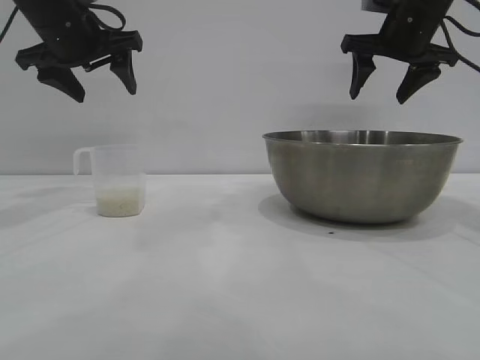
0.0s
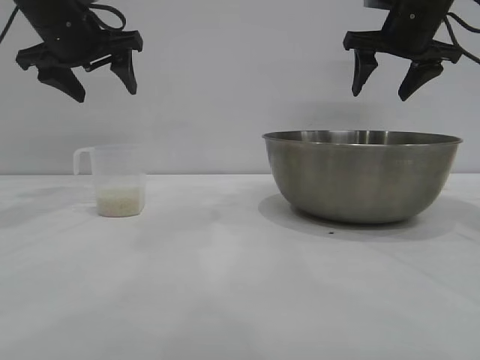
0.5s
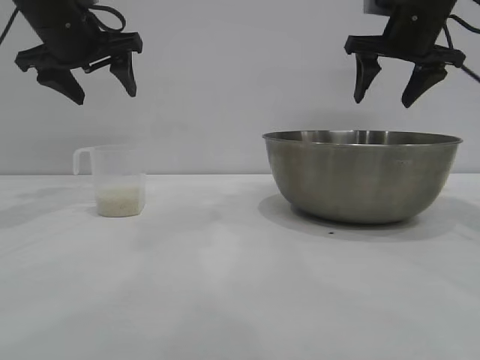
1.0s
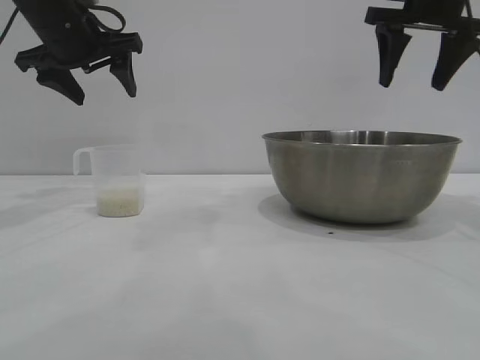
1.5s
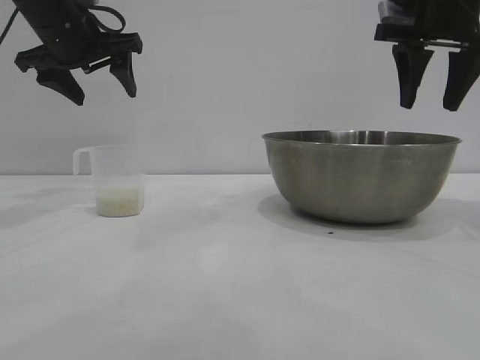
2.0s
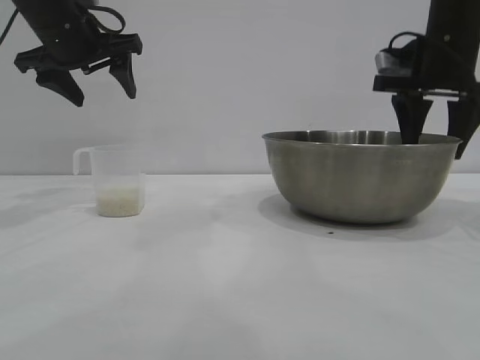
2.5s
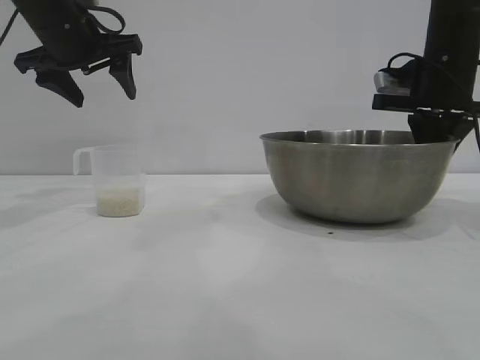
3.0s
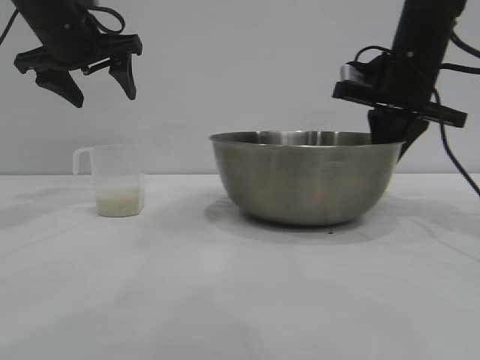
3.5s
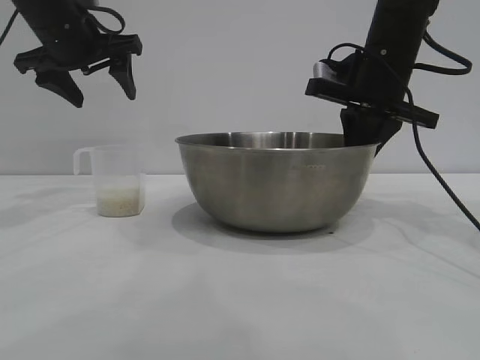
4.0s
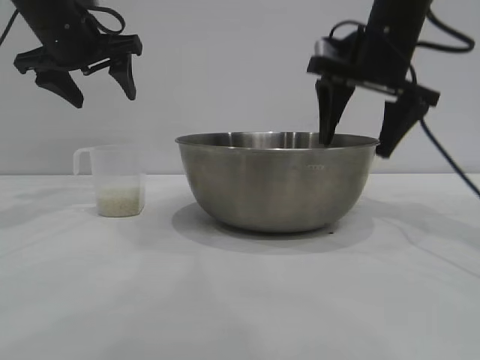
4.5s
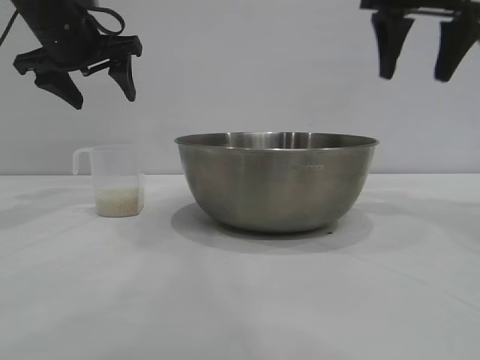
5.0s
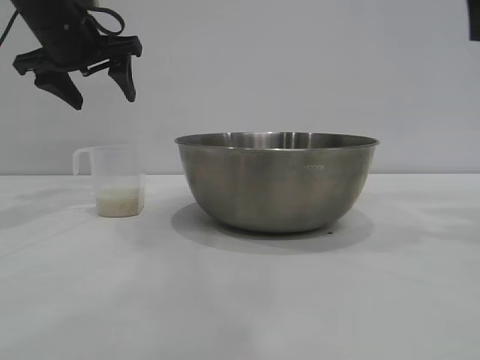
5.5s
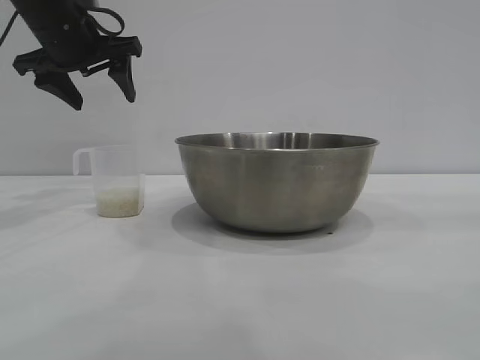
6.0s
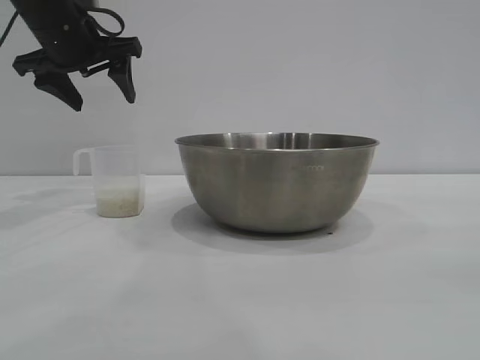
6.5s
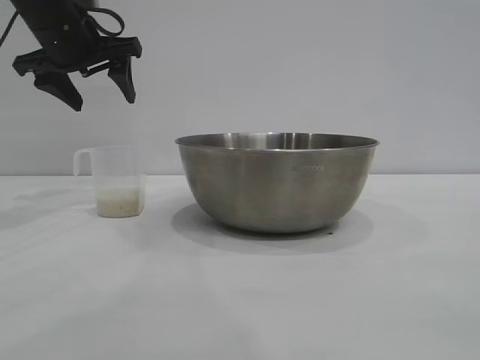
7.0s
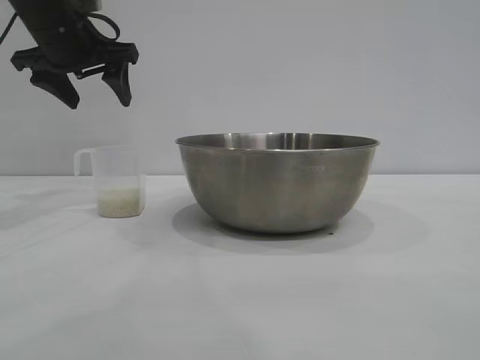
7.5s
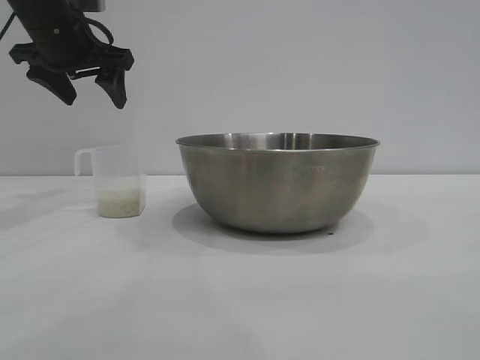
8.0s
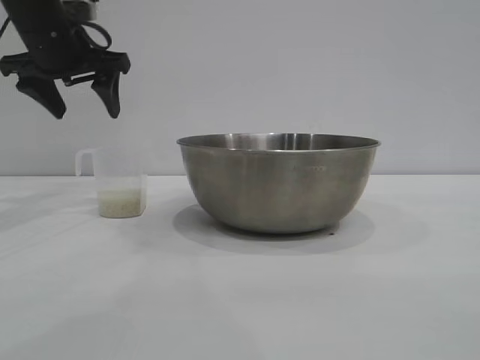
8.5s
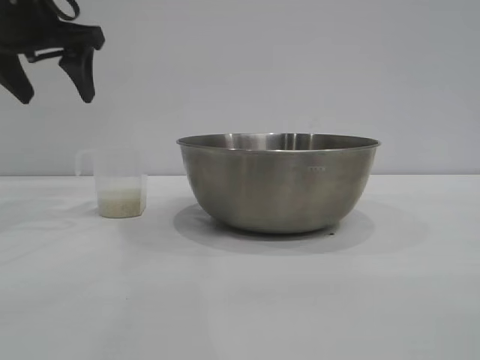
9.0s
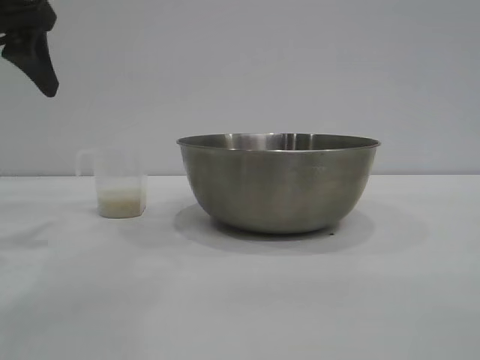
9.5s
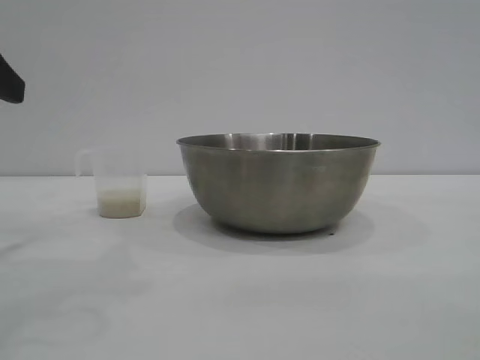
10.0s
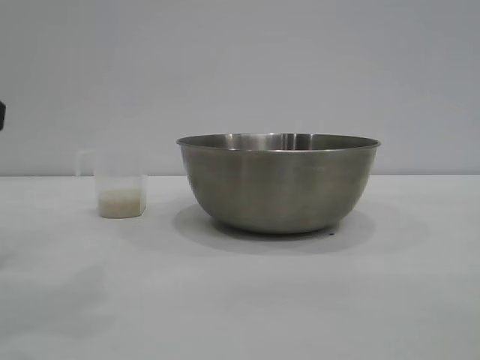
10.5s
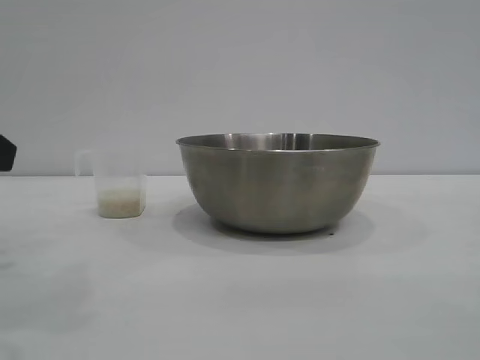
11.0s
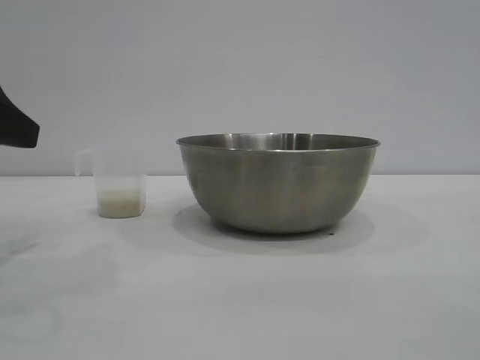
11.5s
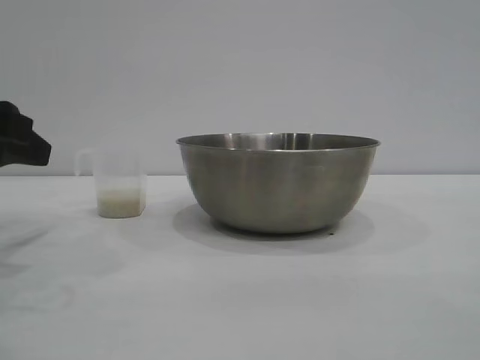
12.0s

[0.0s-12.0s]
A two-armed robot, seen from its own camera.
Task of the whole recording: the right gripper grasp the rice container and place it in the center of the table, the left gripper grasp the rice scoop and pour the rice into the rice container.
Step, 0.0s to 4.5s: Move the bowl to the center of view with the right gripper.

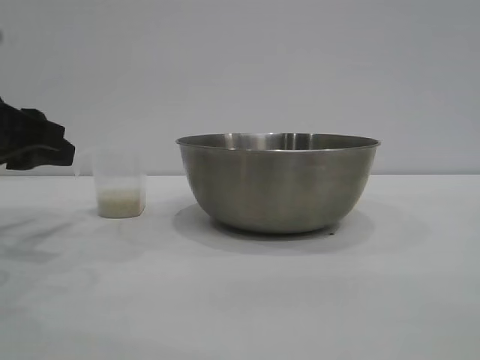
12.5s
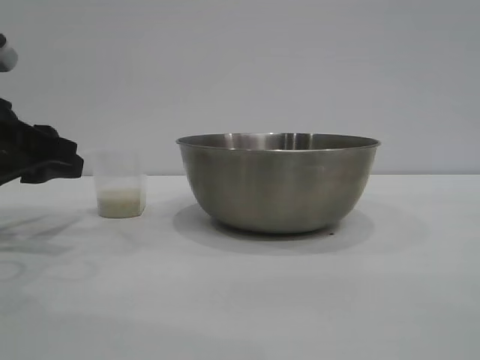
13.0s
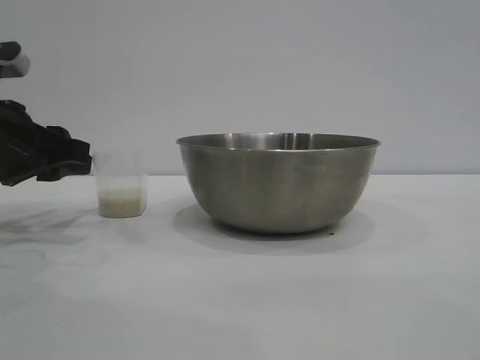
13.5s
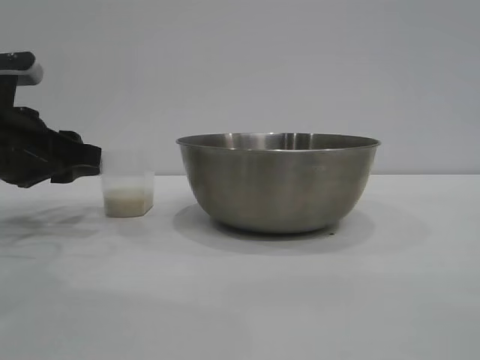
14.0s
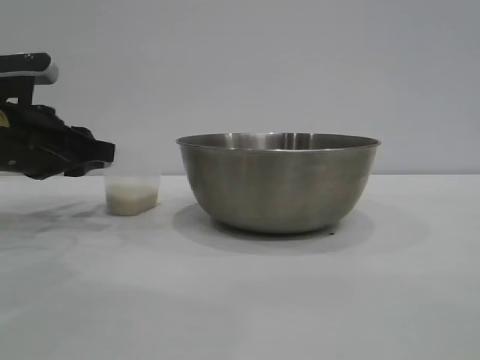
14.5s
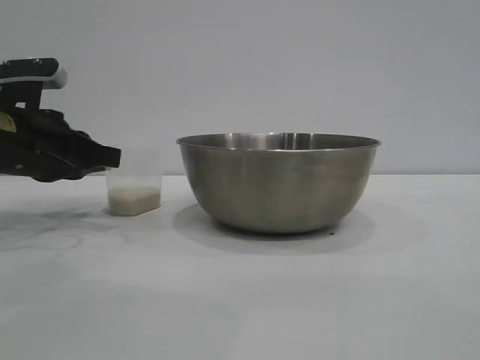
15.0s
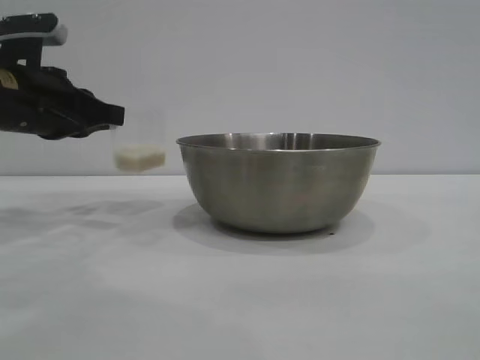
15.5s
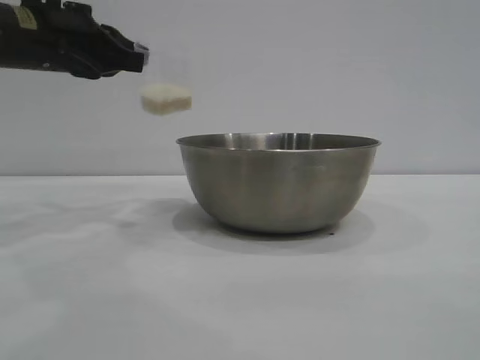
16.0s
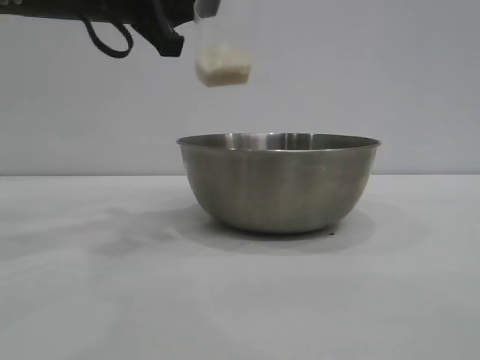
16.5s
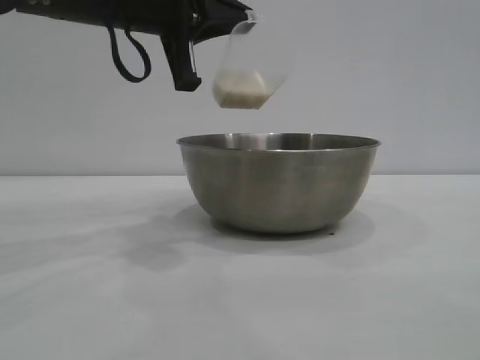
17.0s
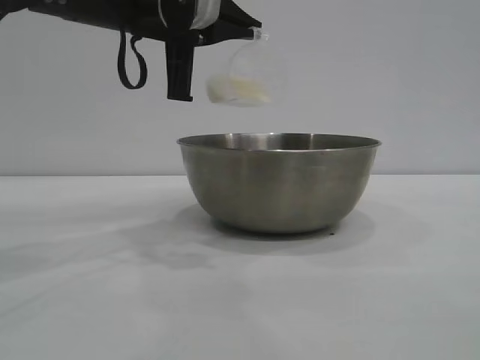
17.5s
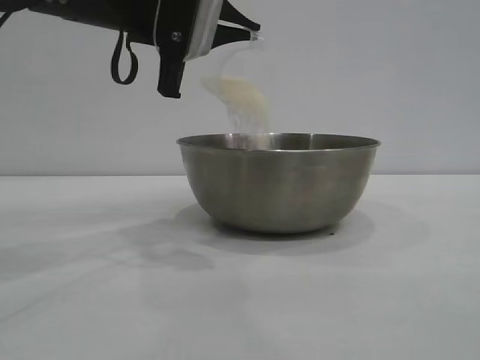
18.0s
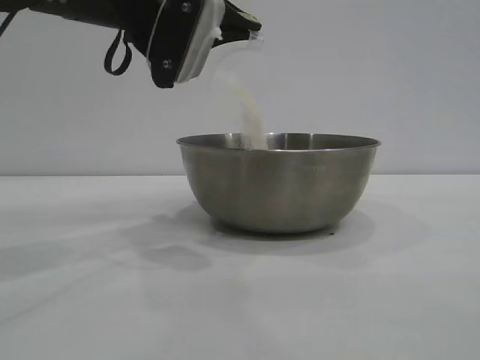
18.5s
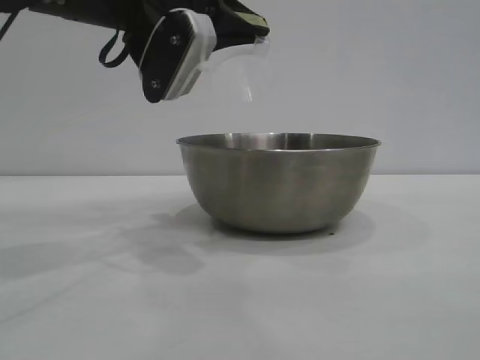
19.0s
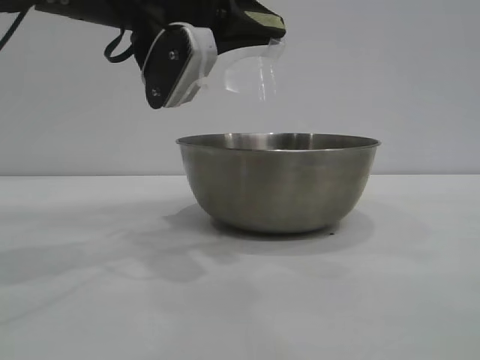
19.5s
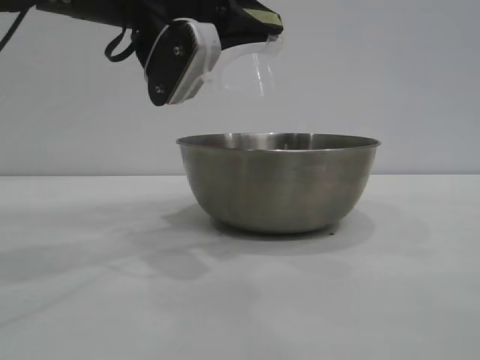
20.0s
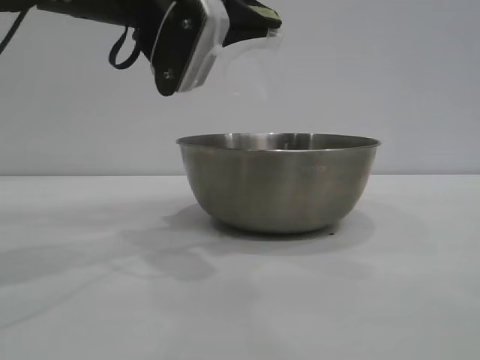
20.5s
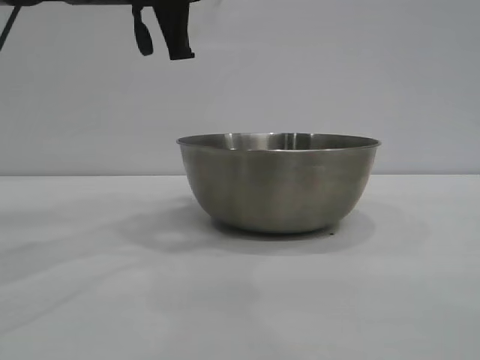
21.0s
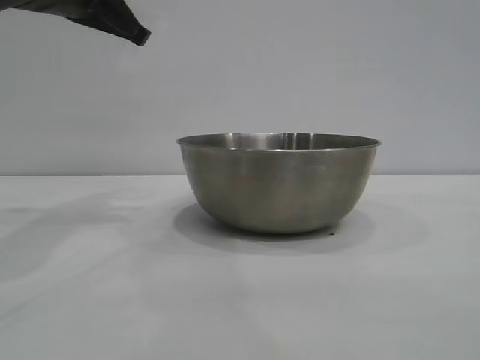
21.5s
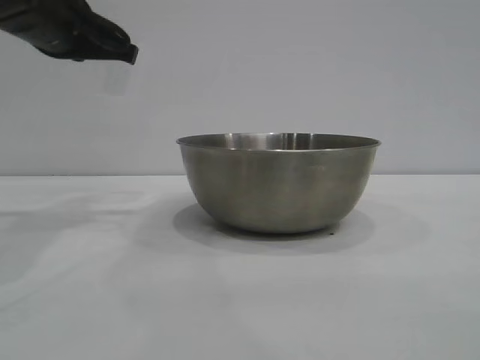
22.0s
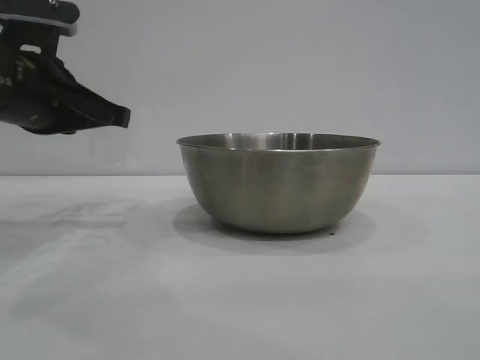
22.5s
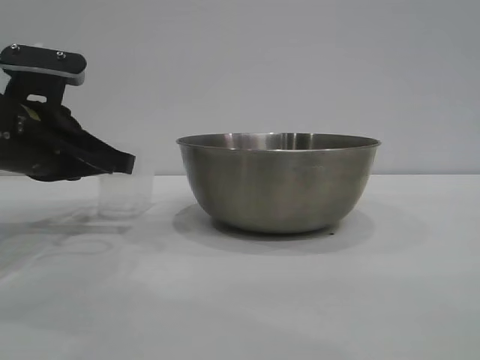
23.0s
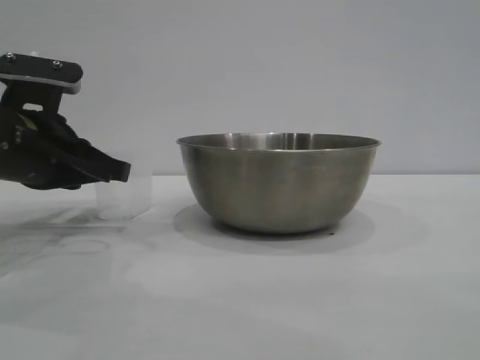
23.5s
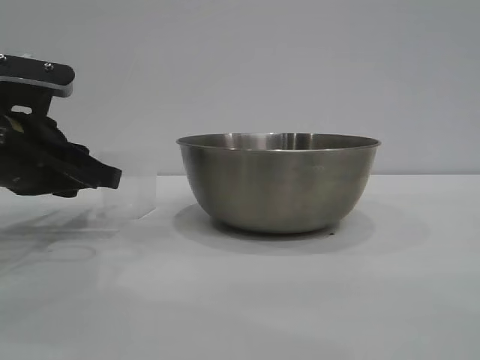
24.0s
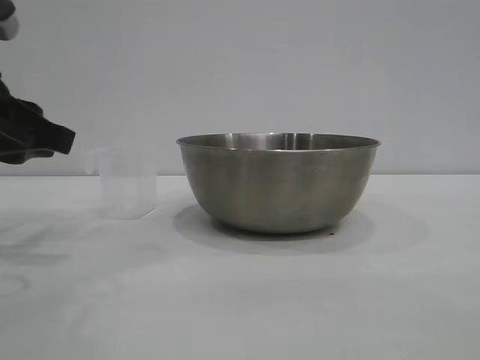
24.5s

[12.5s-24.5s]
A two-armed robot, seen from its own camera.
Task of the whole recording: the right gripper grasp the rice container and place it in the center of the table, the left gripper grasp the rice scoop and pour the rice into the rice container.
Step, 12.5s to 15.5s: Pick up the cup with rice in it with the left gripper.
Step, 16.0s to 20.5s: Pour the rice from the cup into the bowl with the left gripper.

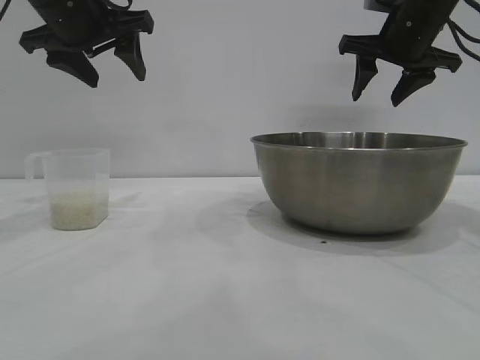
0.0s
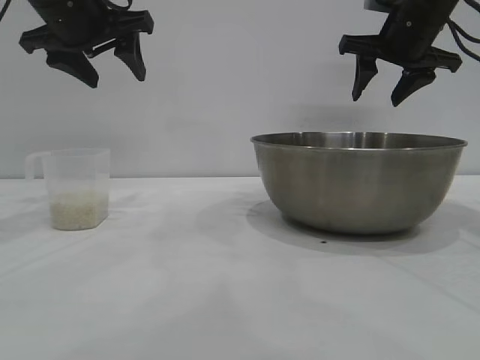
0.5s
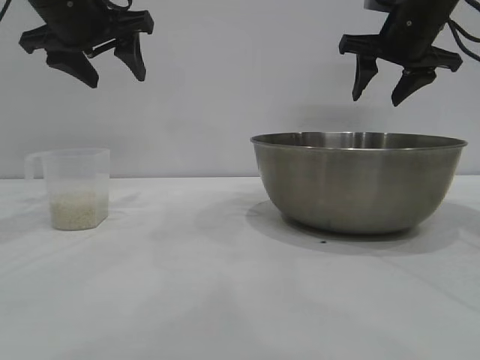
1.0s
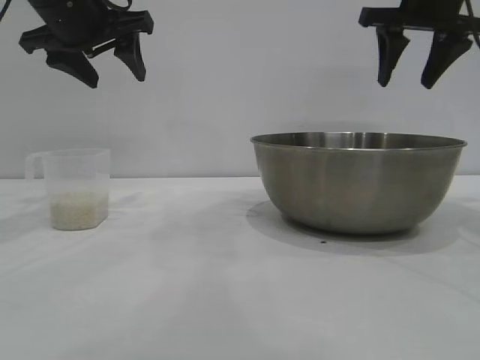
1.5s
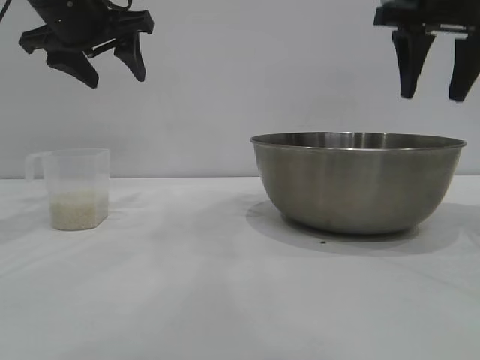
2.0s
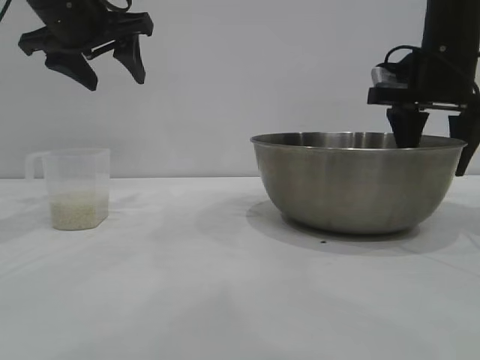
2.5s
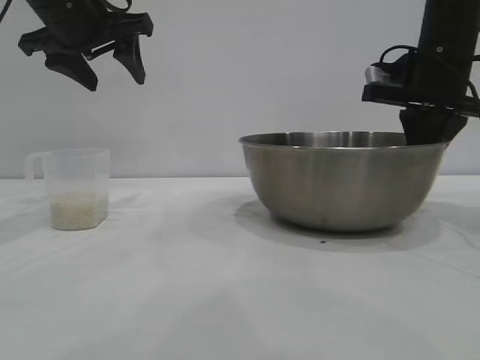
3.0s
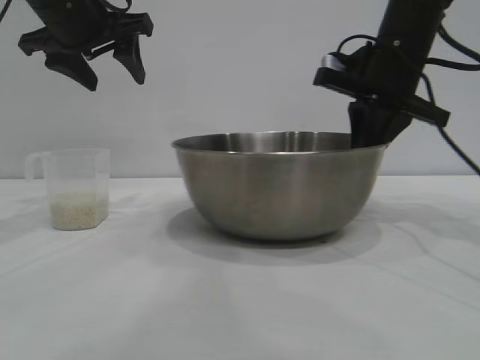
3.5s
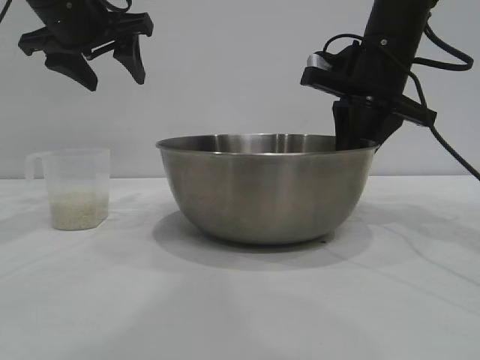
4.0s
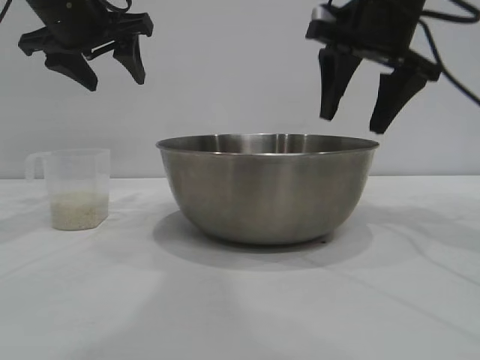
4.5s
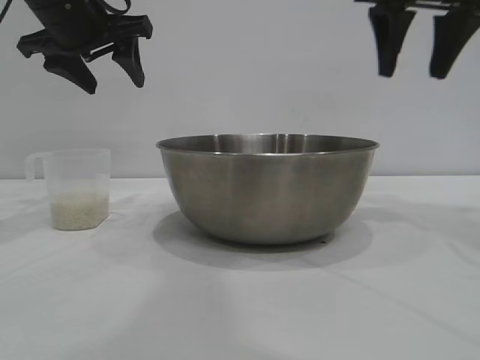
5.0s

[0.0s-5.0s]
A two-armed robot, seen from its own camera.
Task of the whole recording: the right gripper grasp the rice container and place it in the center of the table, the left gripper grasp the rice scoop and pour the rice into the rice container.
Step, 0.0s to 4.5s: Move the bowl to the center of view with the right gripper.
